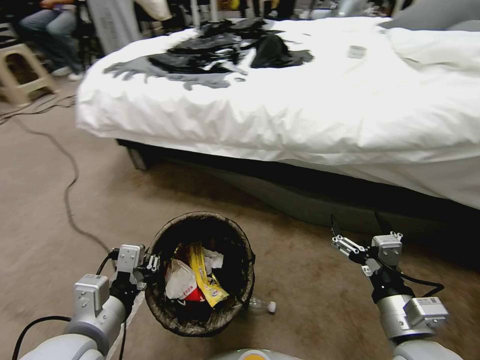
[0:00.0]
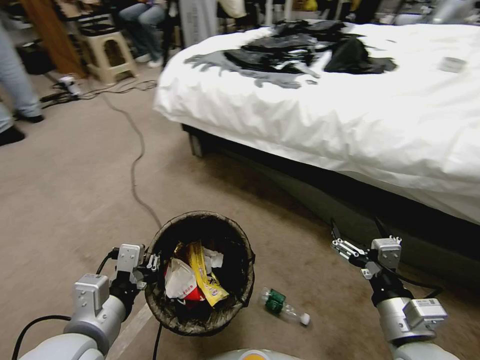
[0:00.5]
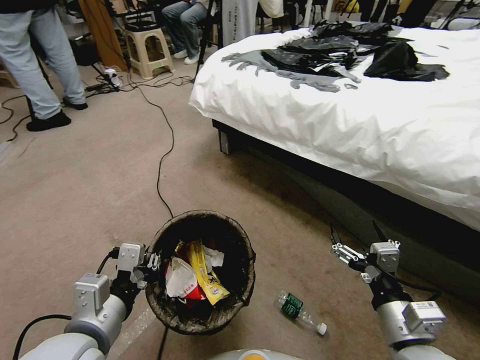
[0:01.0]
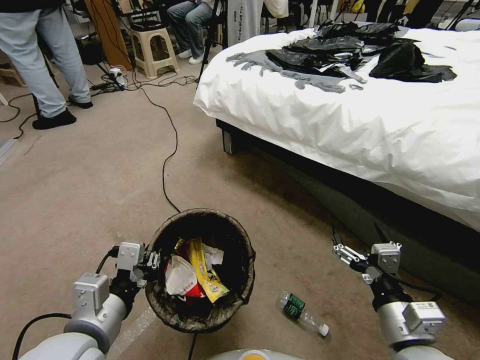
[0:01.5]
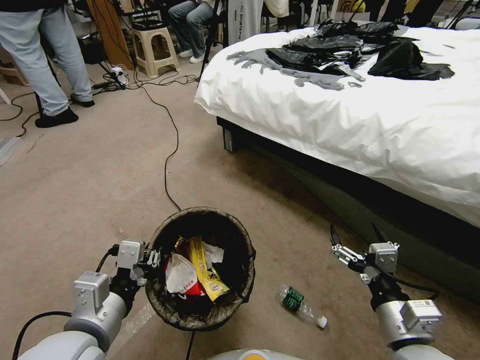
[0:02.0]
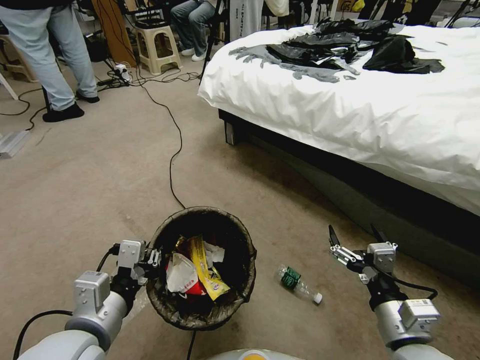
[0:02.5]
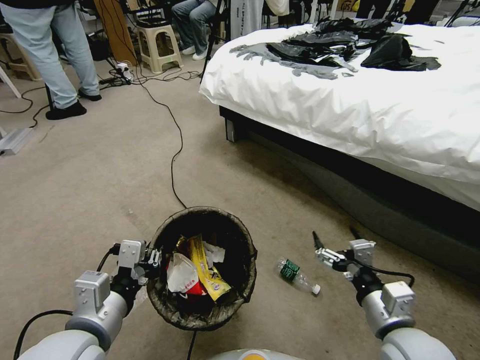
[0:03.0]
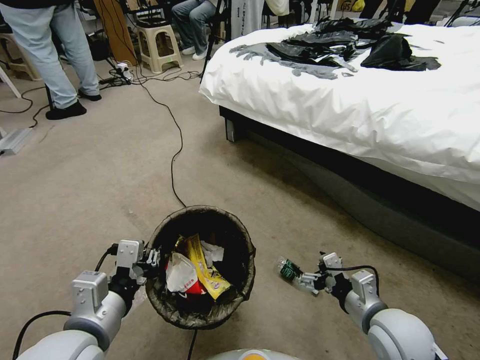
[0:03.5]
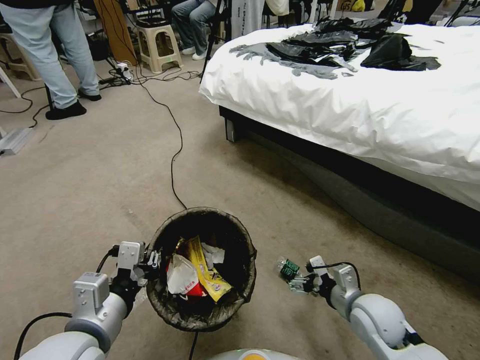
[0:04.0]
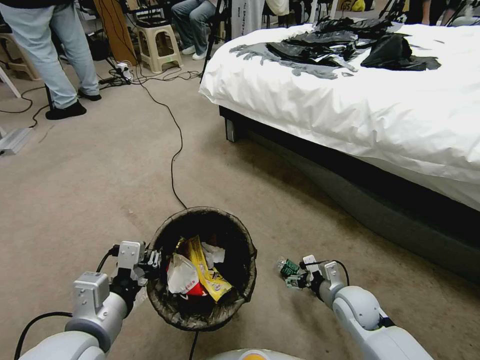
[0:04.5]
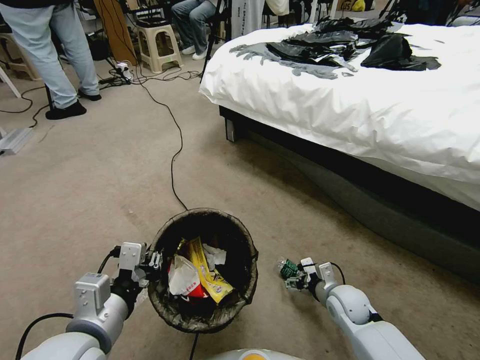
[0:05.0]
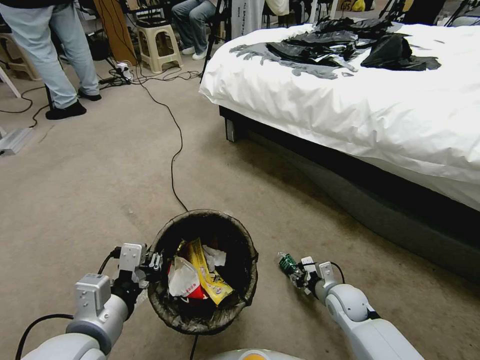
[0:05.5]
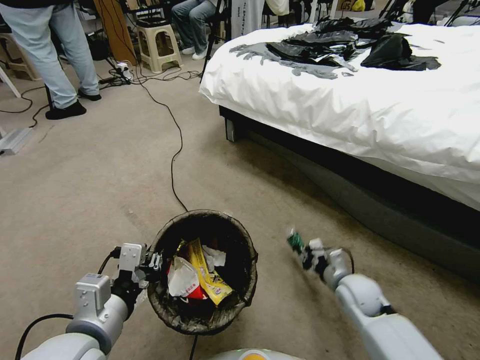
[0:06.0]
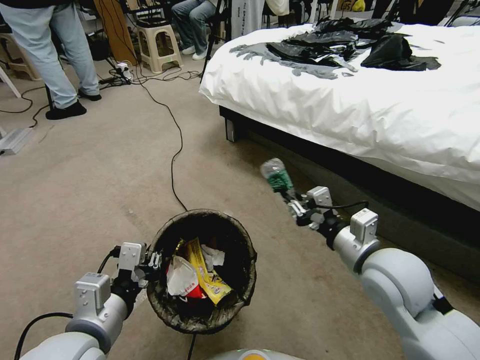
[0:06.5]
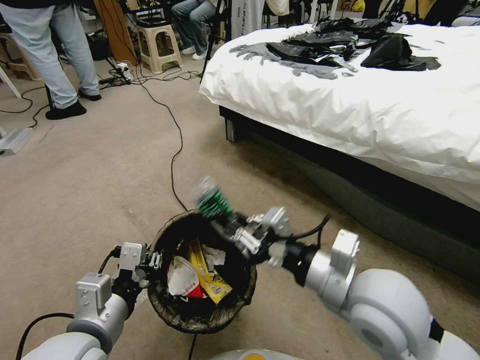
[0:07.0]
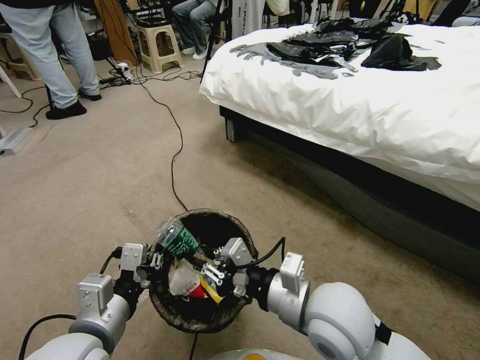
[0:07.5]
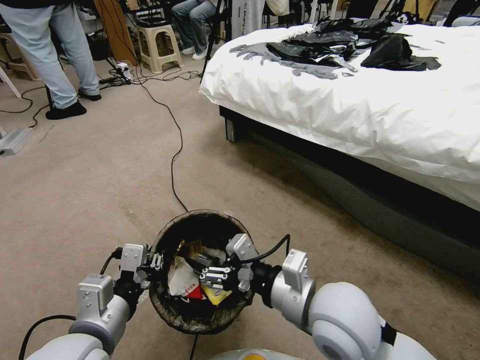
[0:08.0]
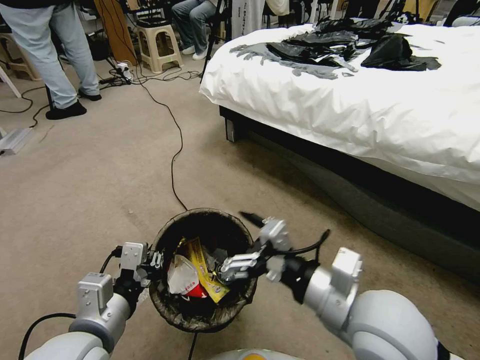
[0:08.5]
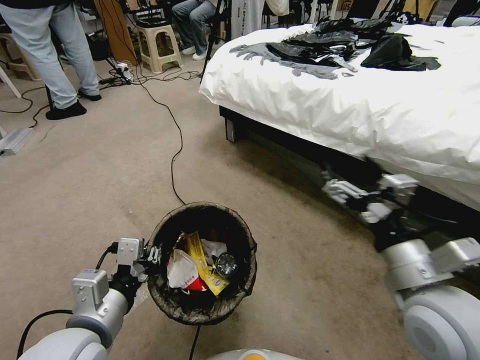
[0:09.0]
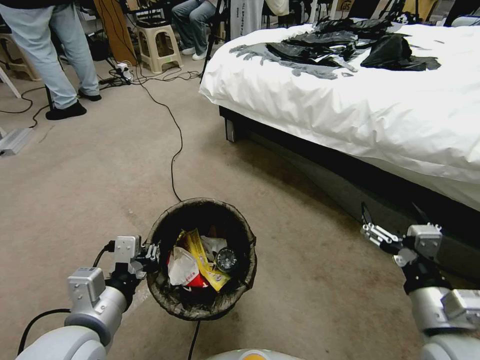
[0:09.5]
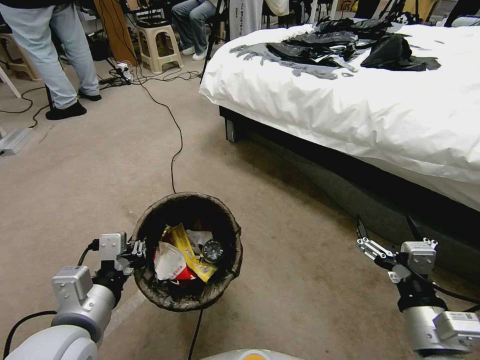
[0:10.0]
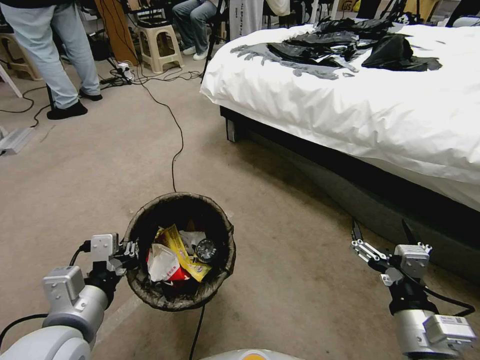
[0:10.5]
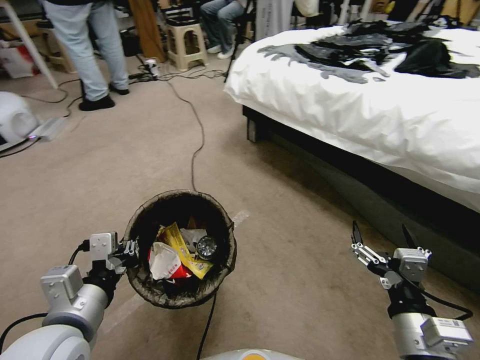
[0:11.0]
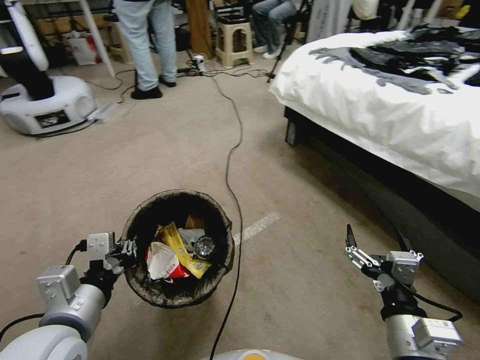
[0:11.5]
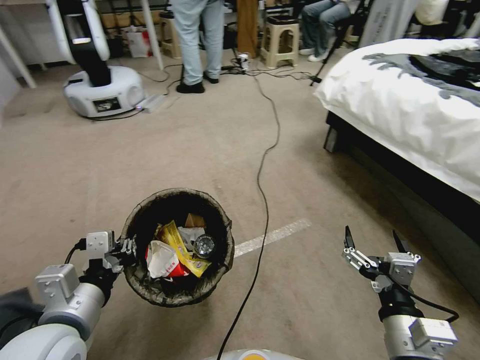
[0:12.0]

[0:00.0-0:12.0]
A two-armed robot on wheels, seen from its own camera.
Task of the whole recording: Pick up the trash bin, then pick up the garbage from the floor and place it into the trash bin.
0:02.0 to 0:04.0: The right gripper shifts approximately 15 cm forward and downward.
0:04.0 to 0:06.0: The right gripper moves downward and forward, approximately 10 cm, and closes its fingers.
0:06.0 to 0:08.0: The right gripper heads upward, to the left and backward, covering approximately 30 cm, and opens its fingers.
0:08.0 to 0:10.0: The right gripper moves to the right and backward, approximately 20 cm.

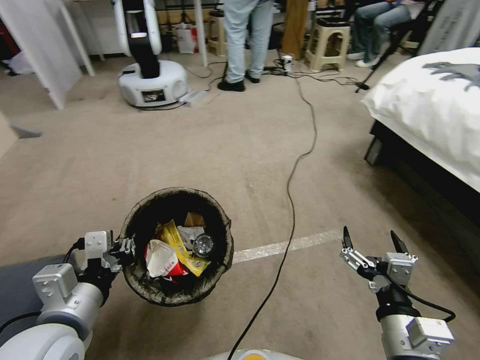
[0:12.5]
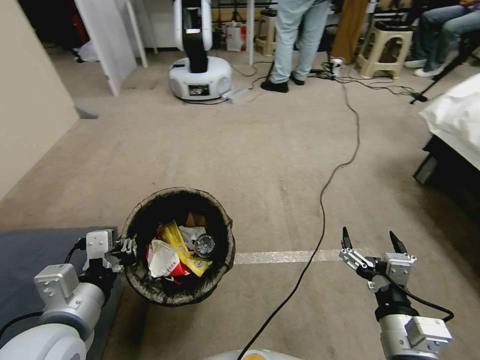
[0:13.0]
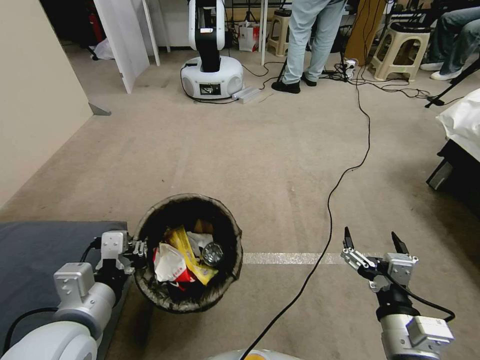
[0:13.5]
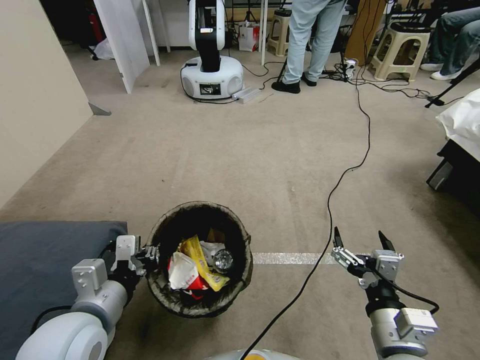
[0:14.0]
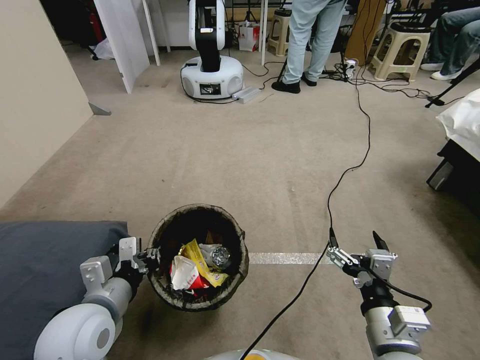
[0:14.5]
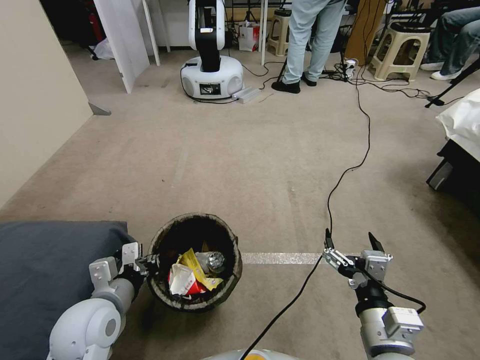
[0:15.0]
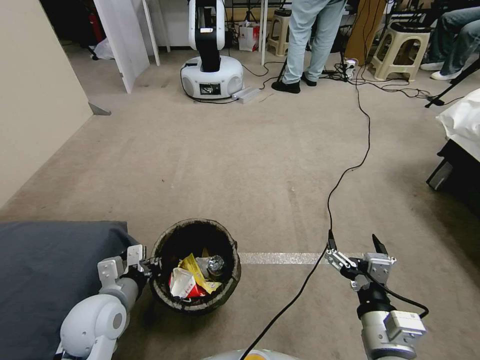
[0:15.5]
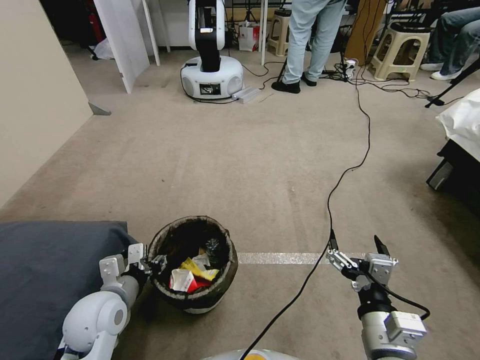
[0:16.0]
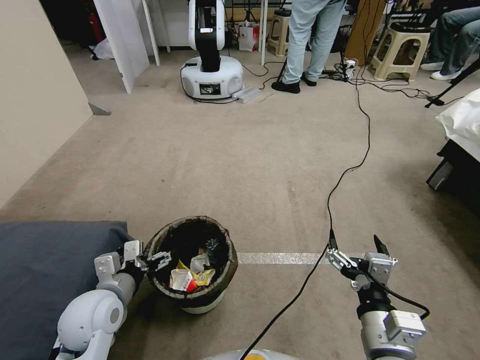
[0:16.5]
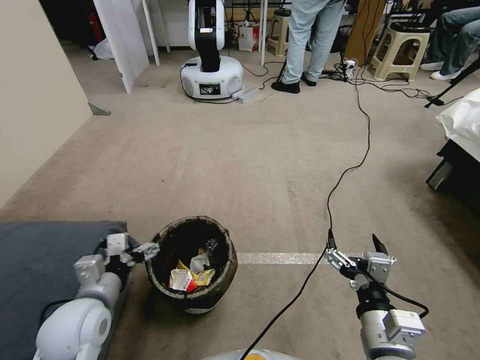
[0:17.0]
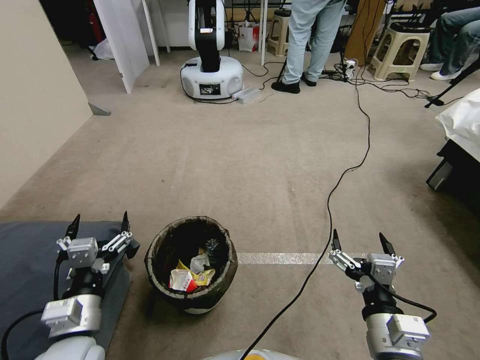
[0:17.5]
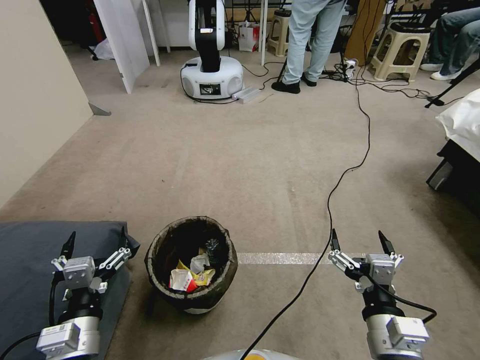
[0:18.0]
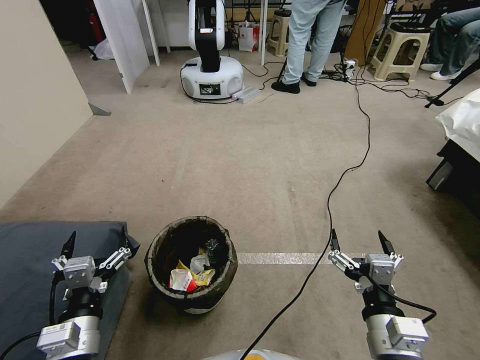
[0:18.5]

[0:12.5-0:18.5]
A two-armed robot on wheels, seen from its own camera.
Task of the whole recording: Pick up the trash bin, then pick up the garbage from the floor and place it into the trash bin.
0:12.5 to 0:14.5: The left gripper heads downward, covering some 5 cm.
0:14.5 to 0:16.5: The left gripper goes approximately 5 cm downward, and opens its fingers.
0:16.5 to 0:18.5: The left gripper travels backward by some 10 cm.
